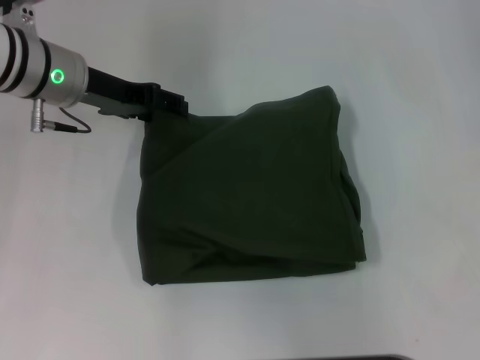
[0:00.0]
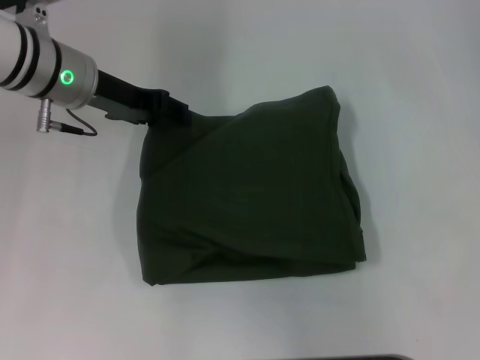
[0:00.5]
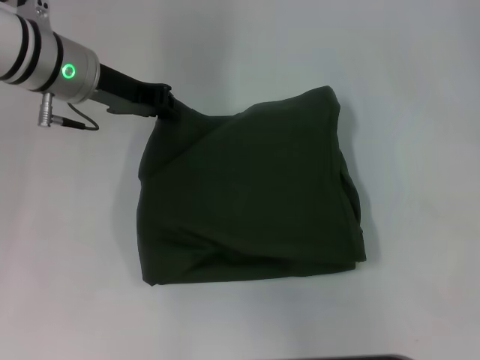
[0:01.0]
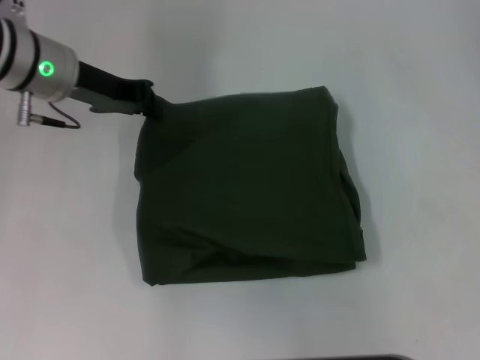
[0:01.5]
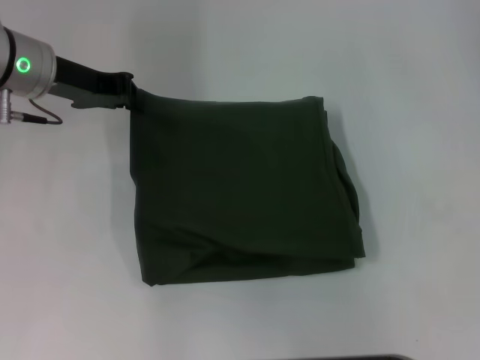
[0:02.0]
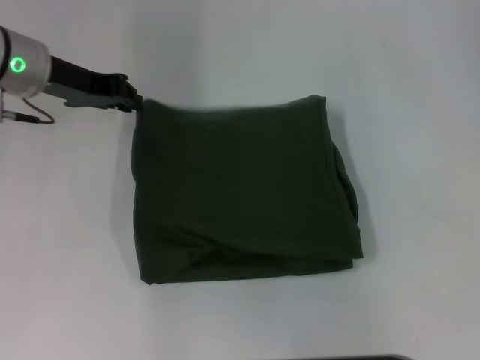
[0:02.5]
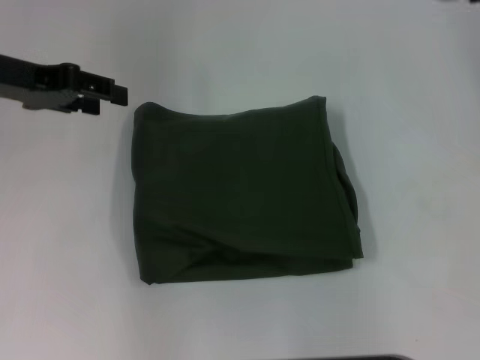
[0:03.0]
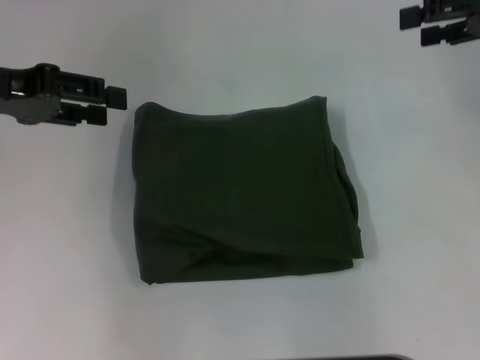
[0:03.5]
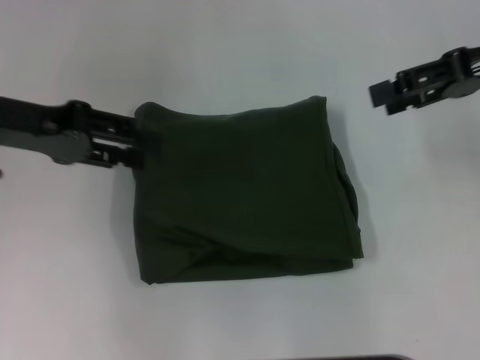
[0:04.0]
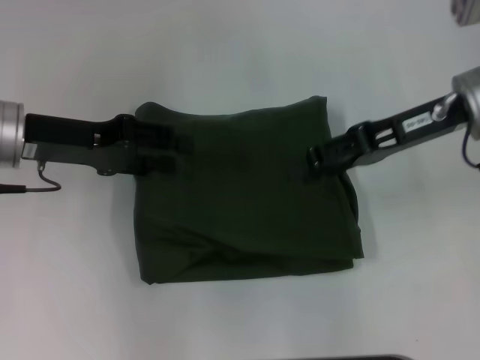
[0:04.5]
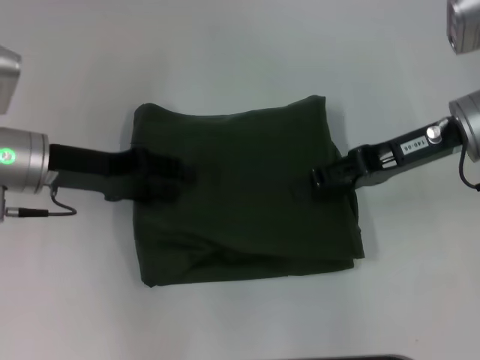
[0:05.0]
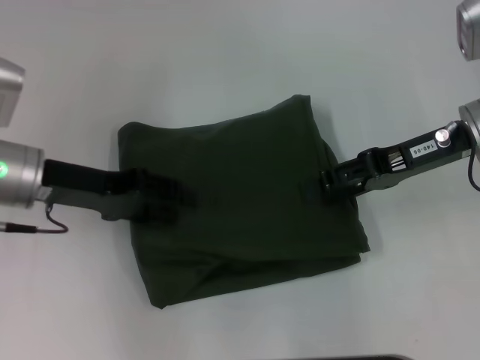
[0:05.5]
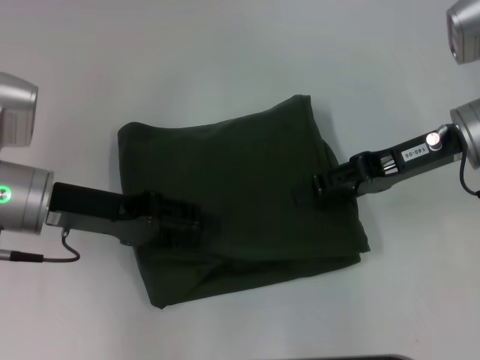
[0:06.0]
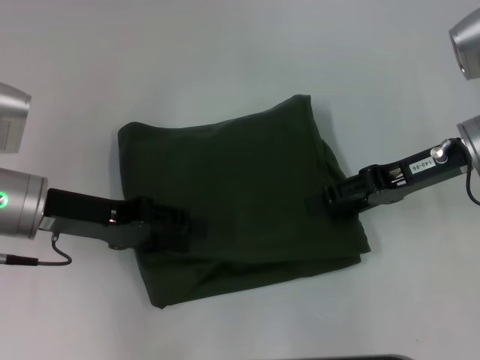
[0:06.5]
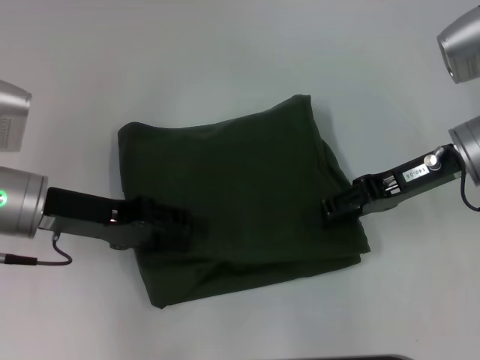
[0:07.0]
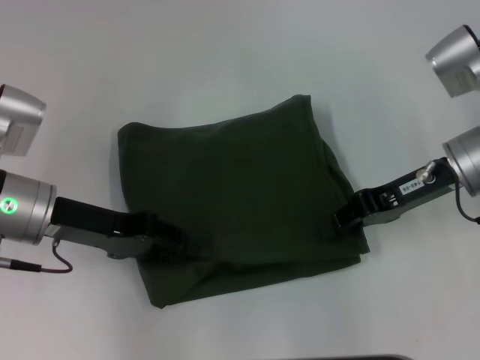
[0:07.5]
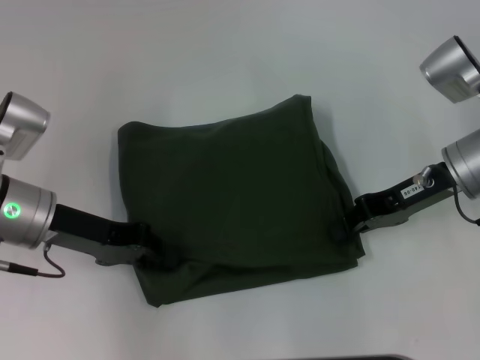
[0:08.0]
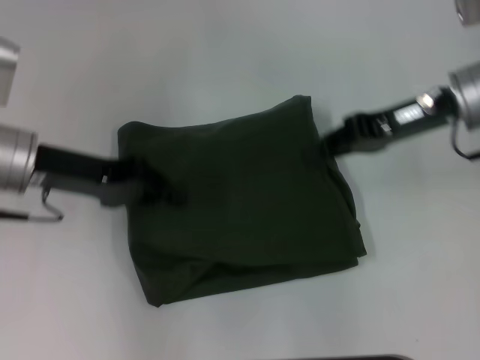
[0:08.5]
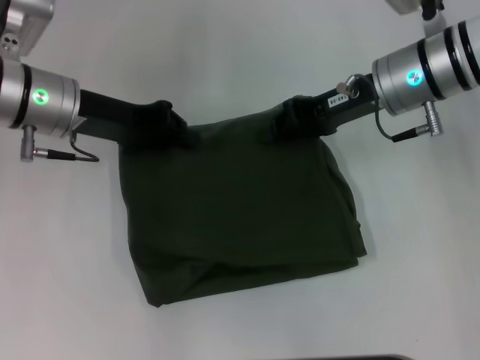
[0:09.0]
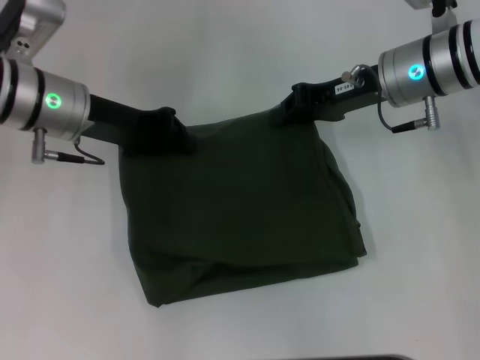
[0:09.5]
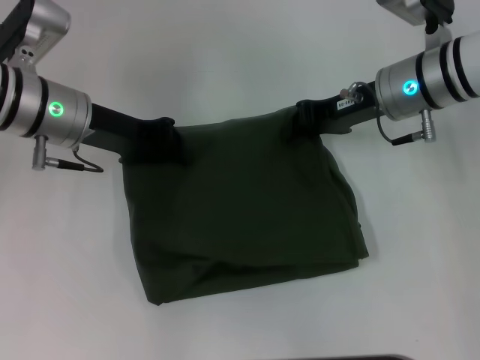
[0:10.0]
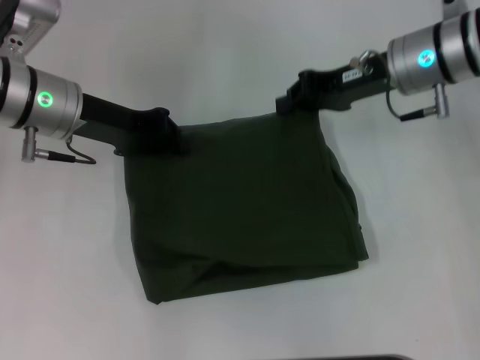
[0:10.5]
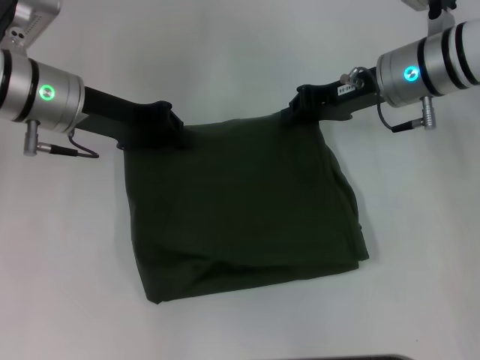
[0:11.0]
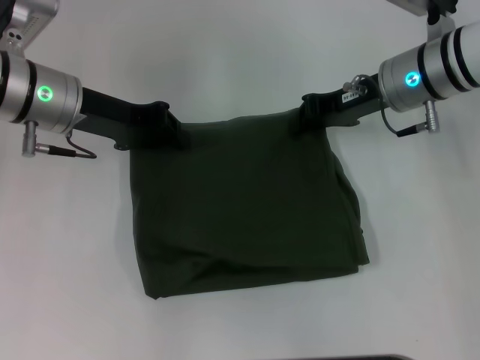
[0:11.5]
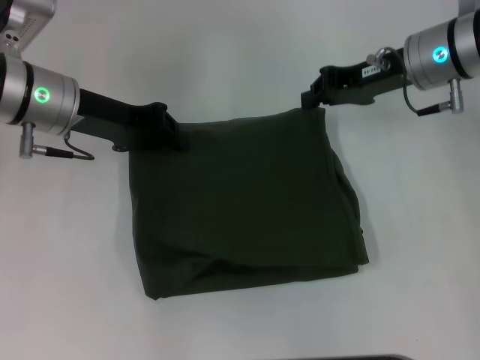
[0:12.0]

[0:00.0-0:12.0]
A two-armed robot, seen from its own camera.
0:00.0 to 0:02.0: The left gripper closes up.
0:02.0 to 0:04.0: The left gripper travels backward by about 5 cm, and opens up, while the right gripper heads to the left, covering approximately 5 cm.
0:04.0 to 0:06.0: The left gripper heads downward, covering about 5 cm. Meanwhile the right gripper is displaced downward and to the left by about 10 cm.
0:06.0 to 0:08.0: The left gripper closes. The right gripper closes up.
0:08.0 to 0:10.0: The left gripper heads forward, covering about 10 cm, while the right gripper shifts approximately 10 cm forward and to the left.
0:10.0 to 0:12.0: There are only small adjustments of the grippers.

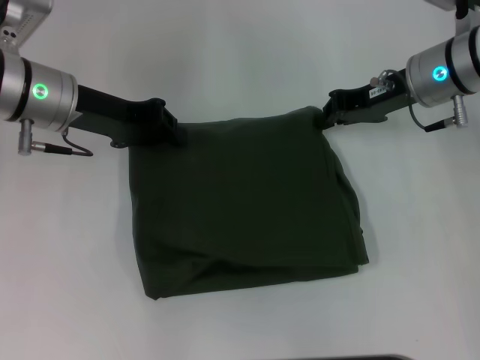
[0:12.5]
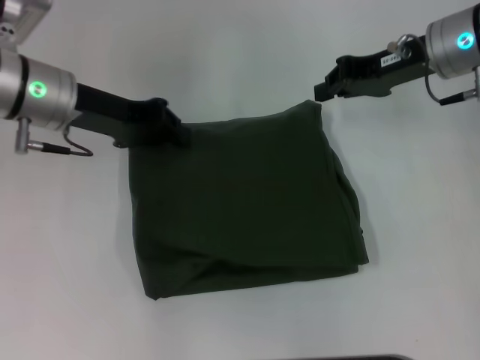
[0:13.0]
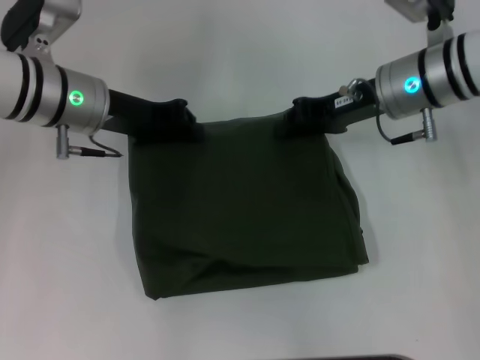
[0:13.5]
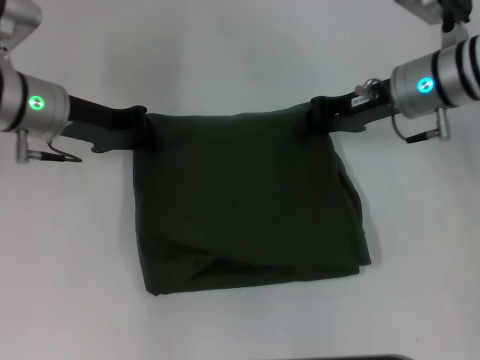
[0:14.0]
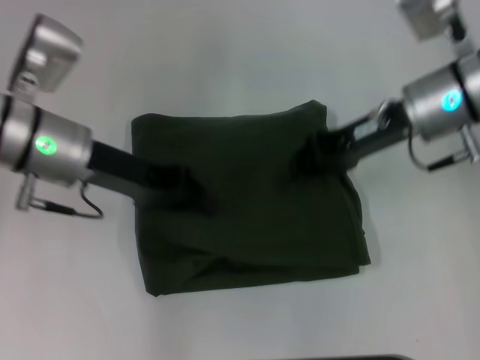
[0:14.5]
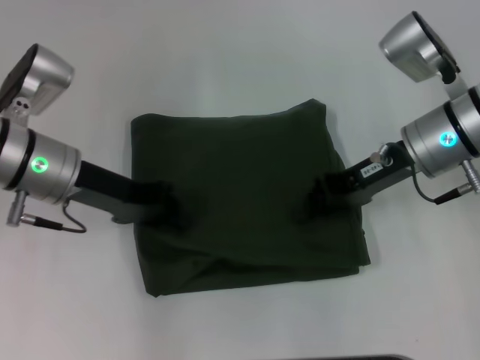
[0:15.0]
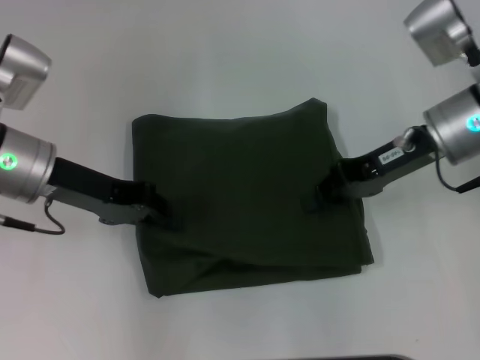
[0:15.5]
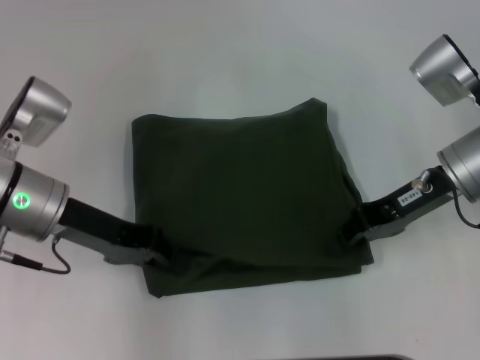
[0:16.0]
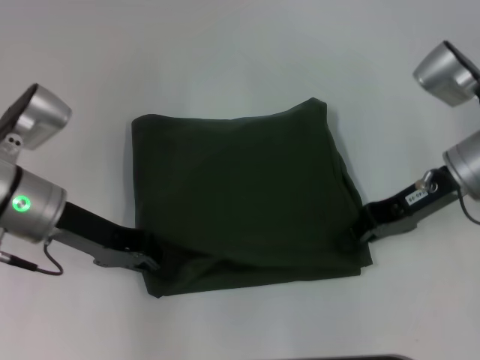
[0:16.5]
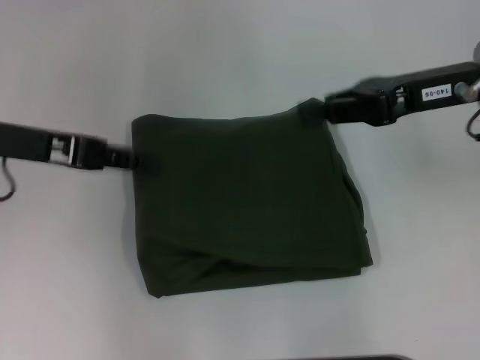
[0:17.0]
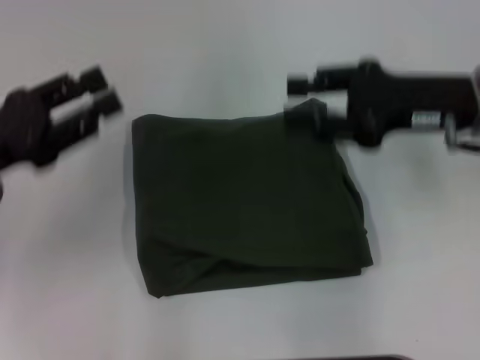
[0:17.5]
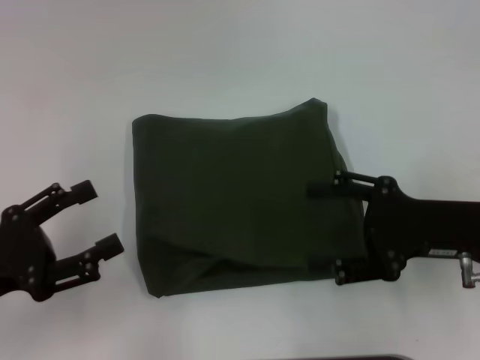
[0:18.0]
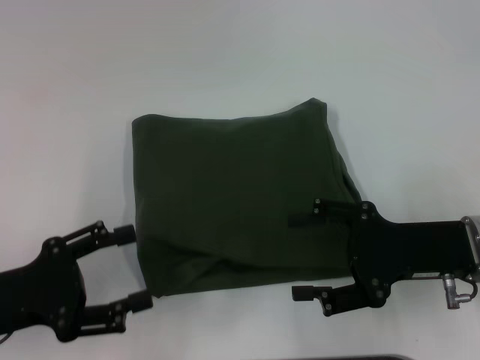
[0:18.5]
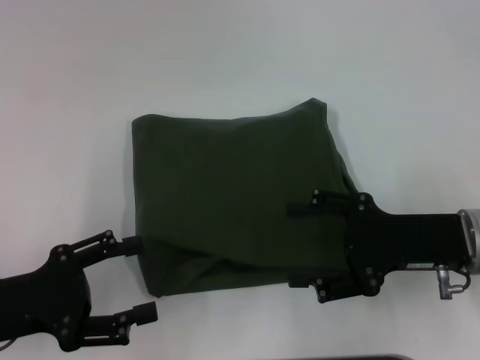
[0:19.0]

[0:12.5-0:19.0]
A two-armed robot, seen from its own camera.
0:12.5 to 0:14.5: The left gripper changes place by roughly 5 cm.
0:14.5 to 0:17.0: The left gripper shifts approximately 5 cm to the left. The right gripper changes place by about 5 cm.
0:17.0 to 0:19.0: The two grippers go about 15 cm backward and downward. The right gripper opens, while the left gripper opens.
